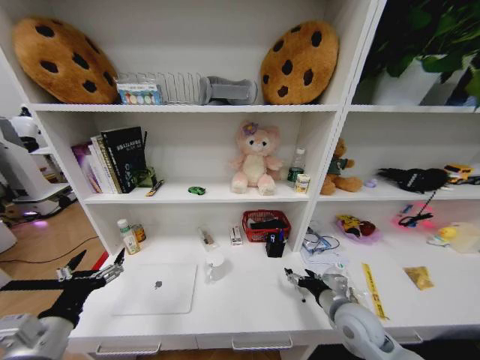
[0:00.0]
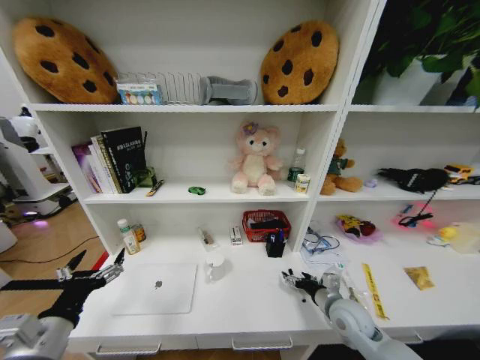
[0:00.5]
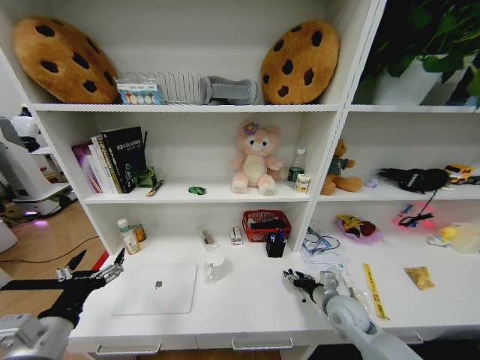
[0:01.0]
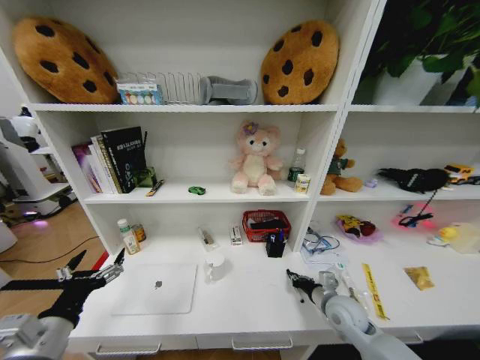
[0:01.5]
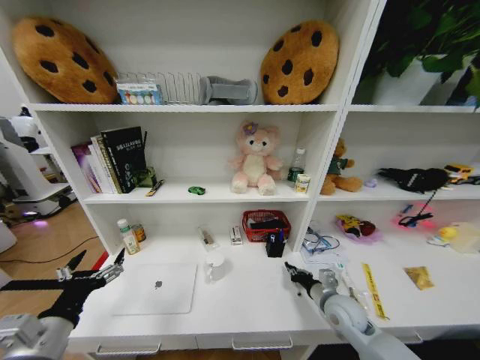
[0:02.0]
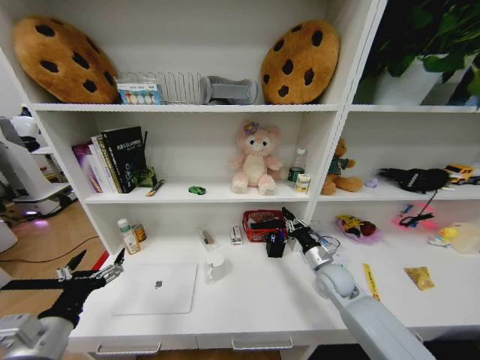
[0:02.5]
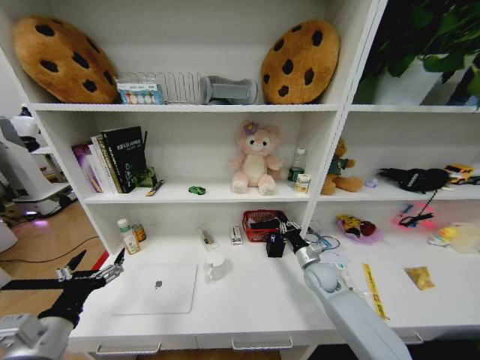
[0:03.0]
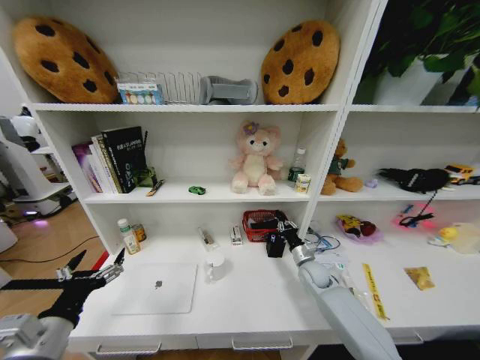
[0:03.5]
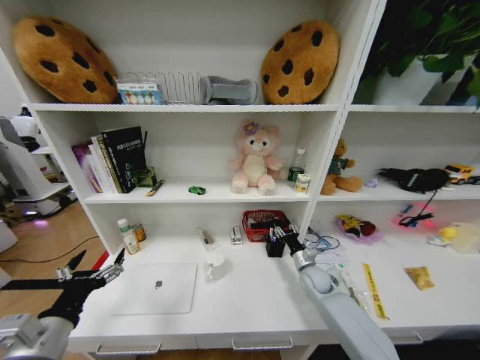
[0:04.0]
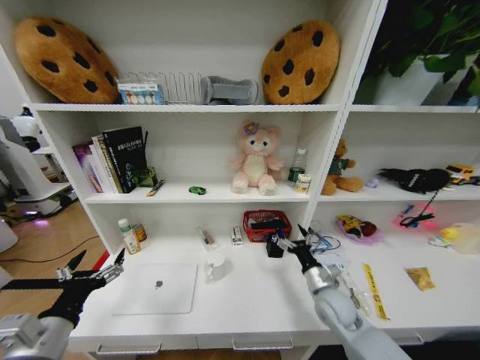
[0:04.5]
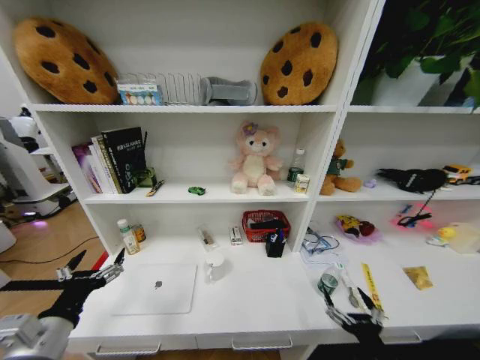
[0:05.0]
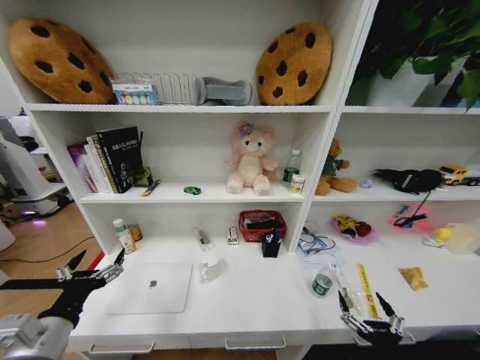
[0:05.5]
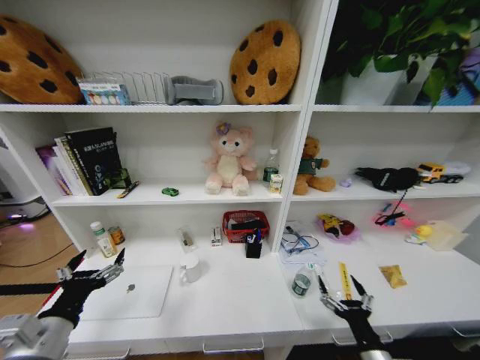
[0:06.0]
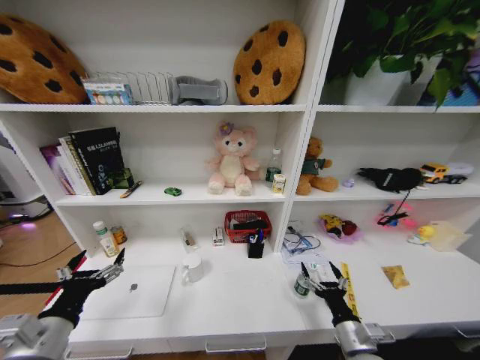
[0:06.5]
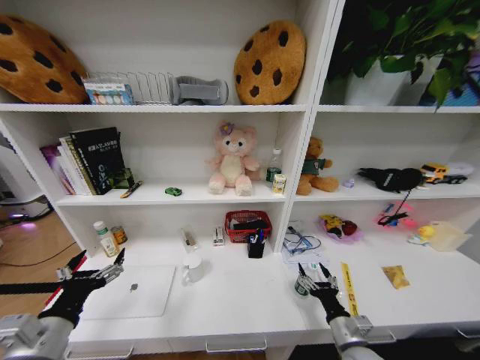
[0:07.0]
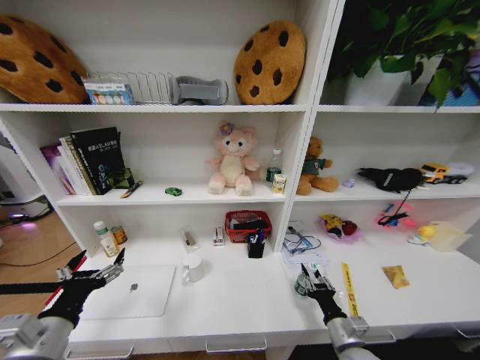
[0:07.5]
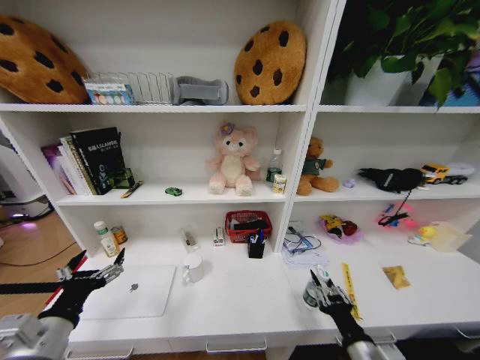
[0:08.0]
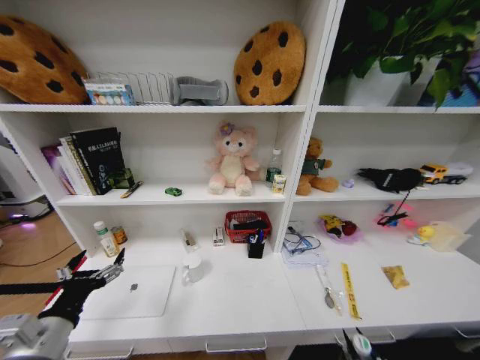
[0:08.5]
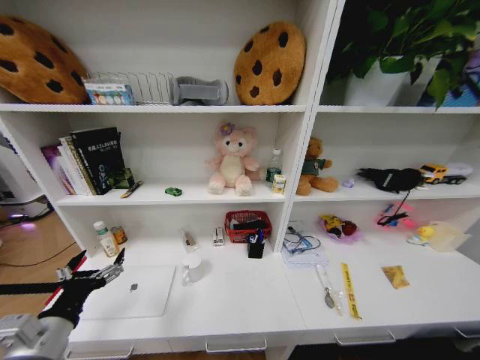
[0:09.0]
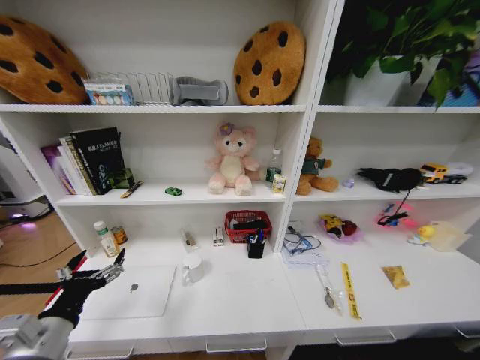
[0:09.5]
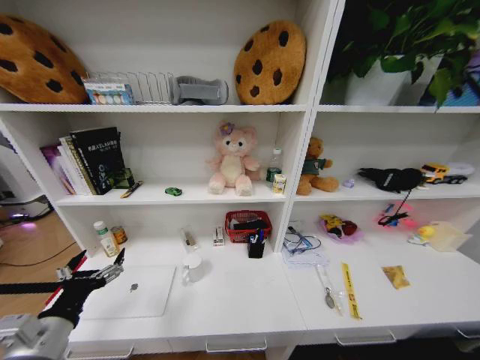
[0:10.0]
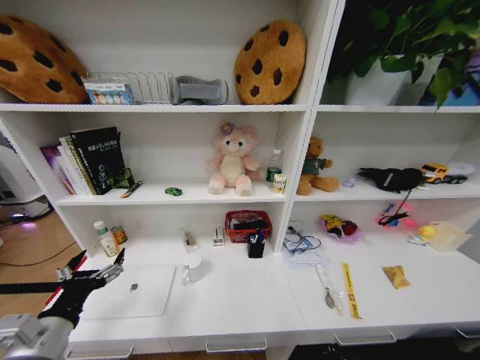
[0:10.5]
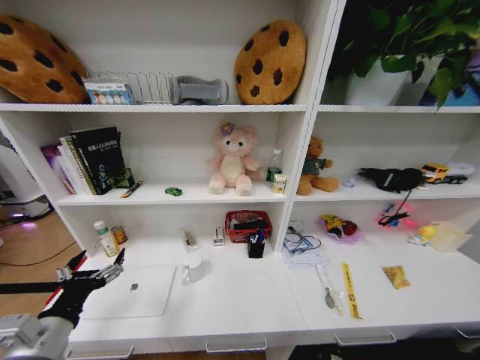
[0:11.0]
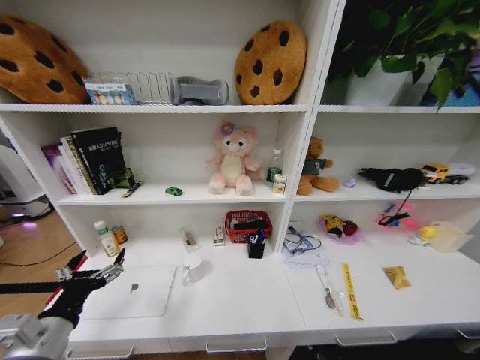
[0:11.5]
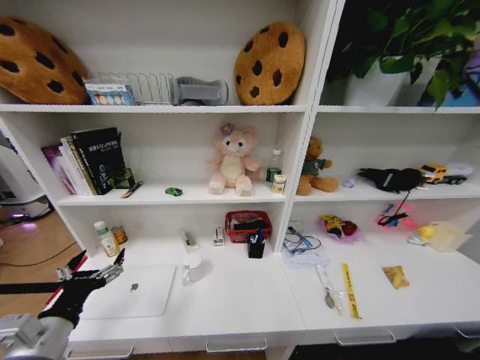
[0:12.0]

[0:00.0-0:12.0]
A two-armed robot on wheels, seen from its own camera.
Task of the whole recording: Organize the objects on the table.
0:00.0 to 0:02.0: The right gripper closes.
0:02.0 to 0:04.0: The right gripper shifts roughly 15 cm forward and downward, and opens its fingers.
0:04.0 to 0:06.0: The right gripper is displaced backward by roughly 30 cm, and opens.
0:06.0 to 0:08.0: The right gripper closes.
0:08.0 to 0:10.0: The right gripper moves downward, roughly 30 cm.

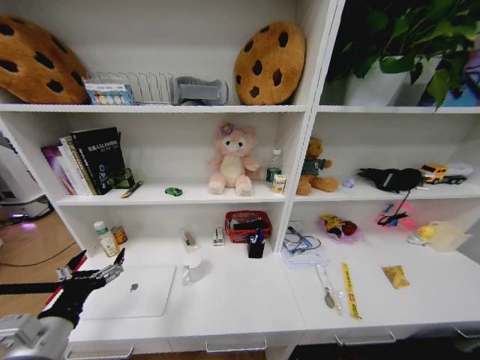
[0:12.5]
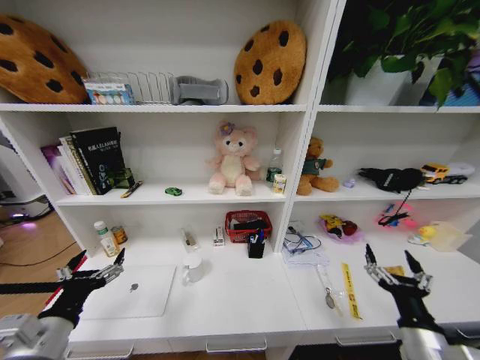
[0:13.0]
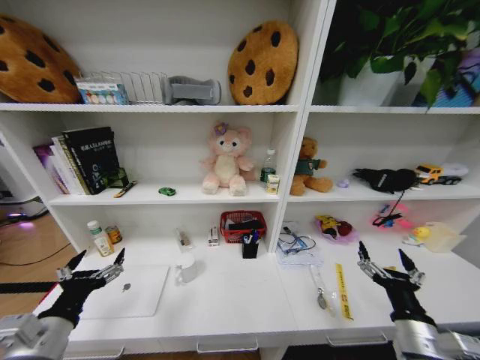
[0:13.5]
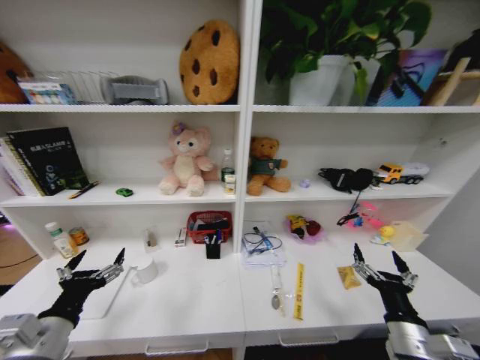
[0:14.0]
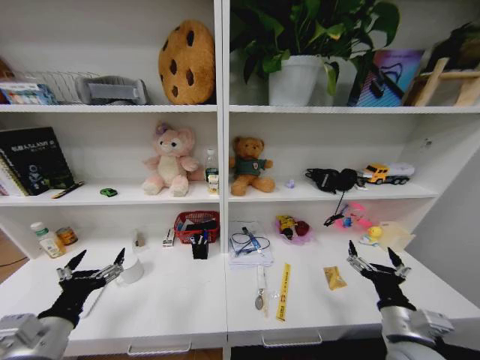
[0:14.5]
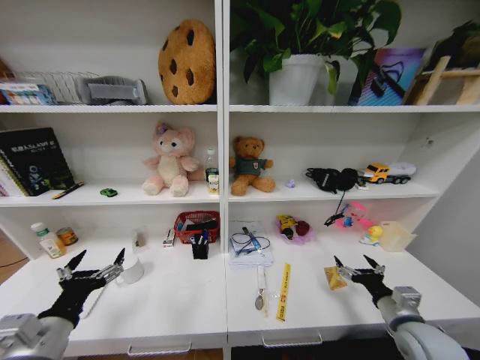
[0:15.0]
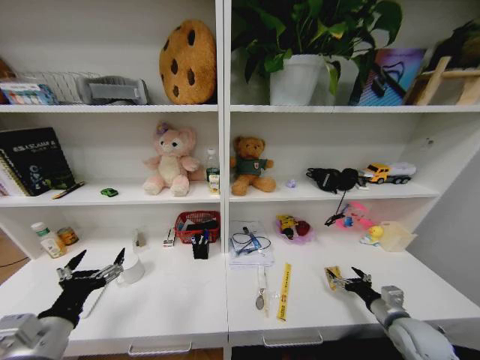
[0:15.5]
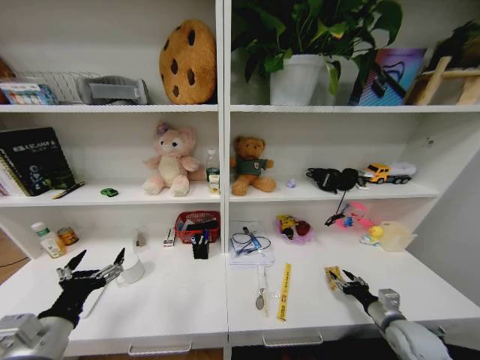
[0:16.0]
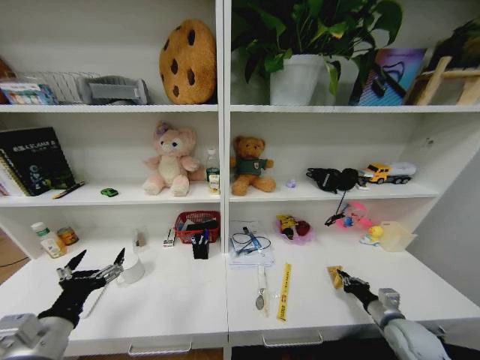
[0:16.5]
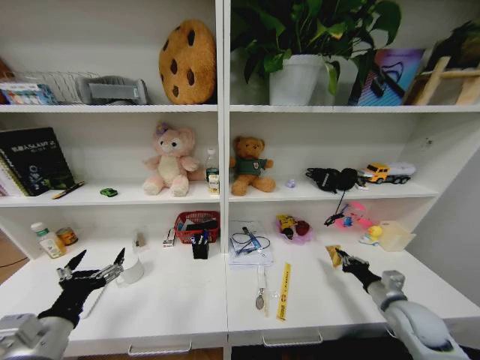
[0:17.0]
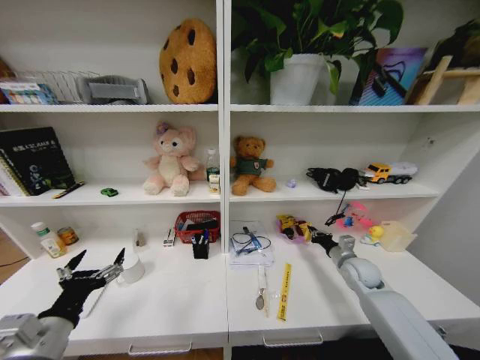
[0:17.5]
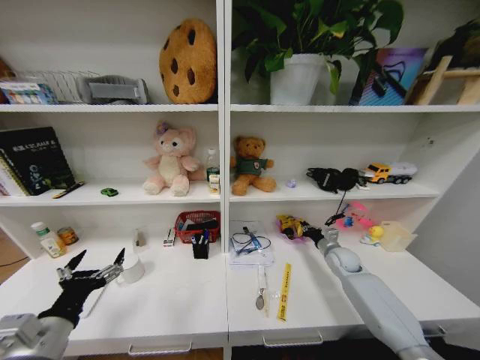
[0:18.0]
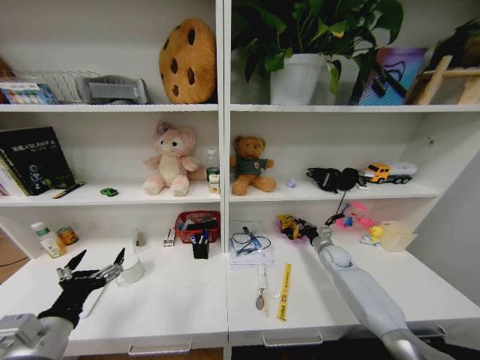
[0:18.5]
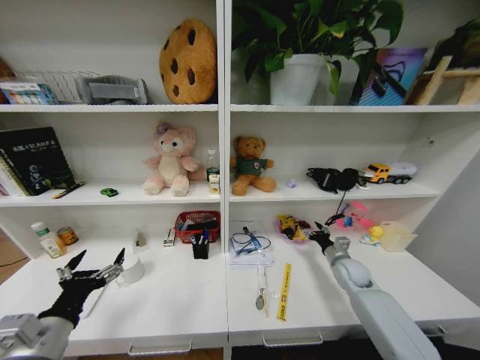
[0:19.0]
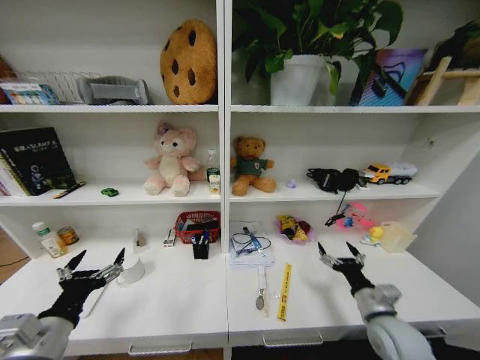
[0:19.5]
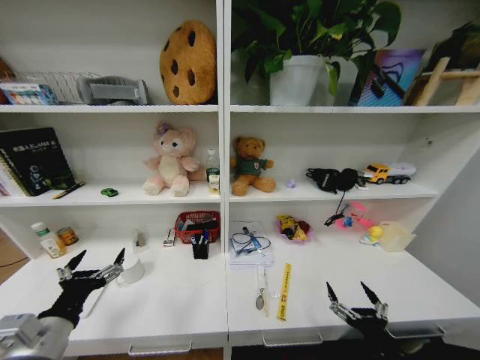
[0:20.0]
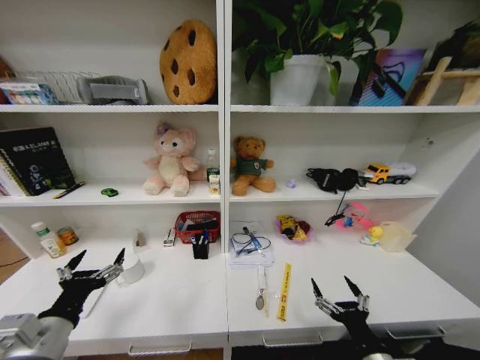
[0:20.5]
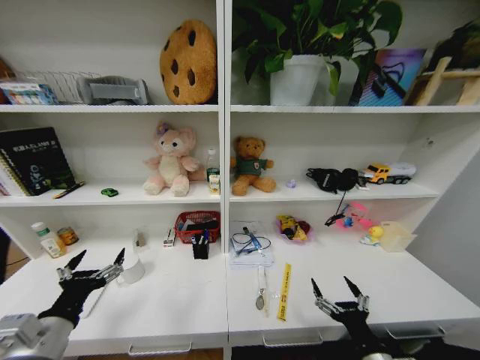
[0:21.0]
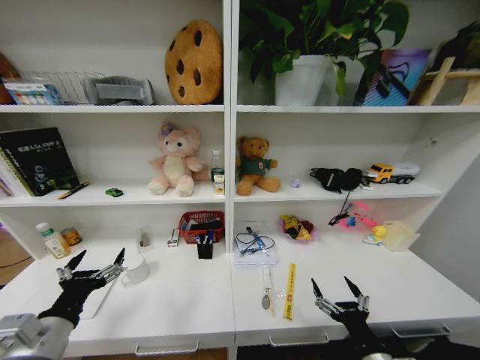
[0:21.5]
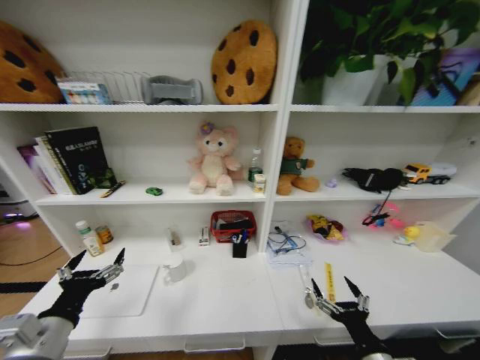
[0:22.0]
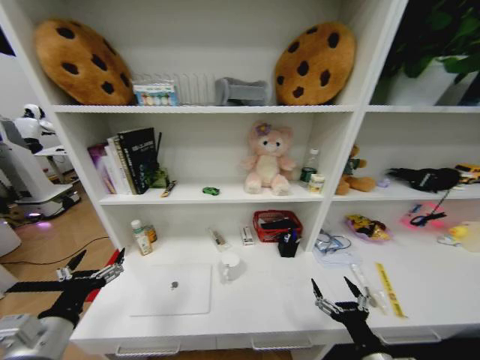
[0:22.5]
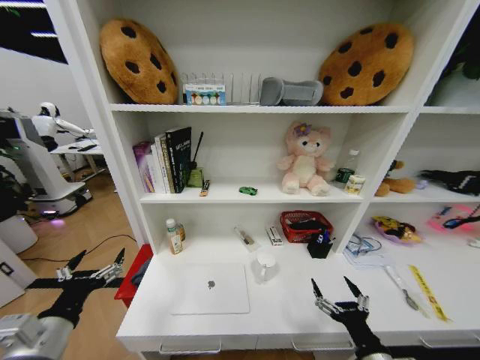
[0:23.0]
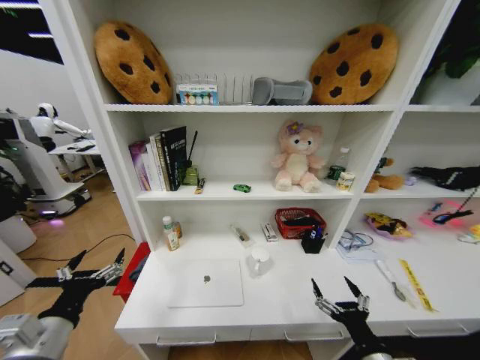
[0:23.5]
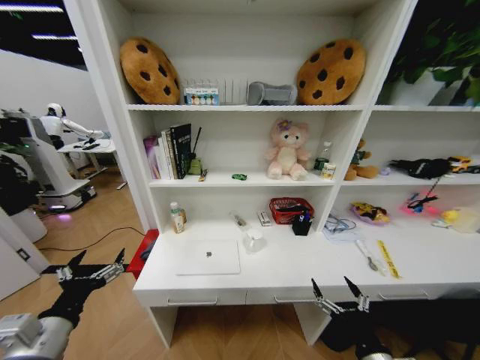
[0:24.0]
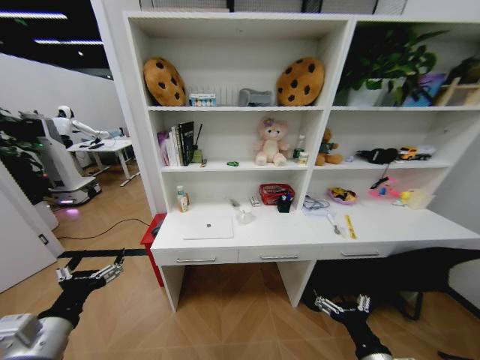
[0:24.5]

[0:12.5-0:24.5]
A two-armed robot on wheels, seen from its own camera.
Task of the whole recording: Organize the objects on the table.
0:12.5 to 0:14.5: The right gripper heads forward and upward, covering roughly 25 cm.
0:14.5 to 0:16.5: The right gripper shifts some 15 cm to the right, downward and forward, and closes.
0:16.5 to 0:18.5: The right gripper heads forward, covering some 25 cm.
0:18.5 to 0:20.5: The right gripper moves backward, about 40 cm, and opens up.

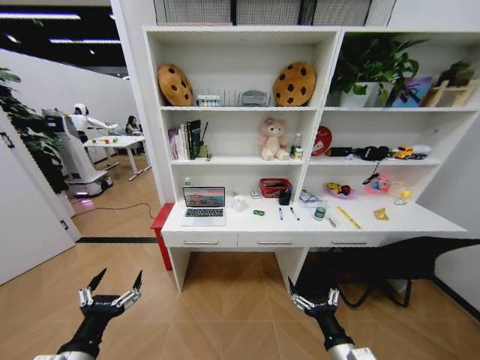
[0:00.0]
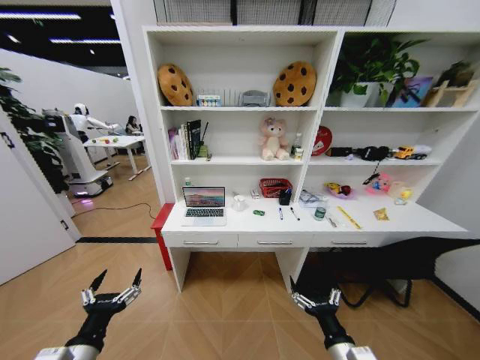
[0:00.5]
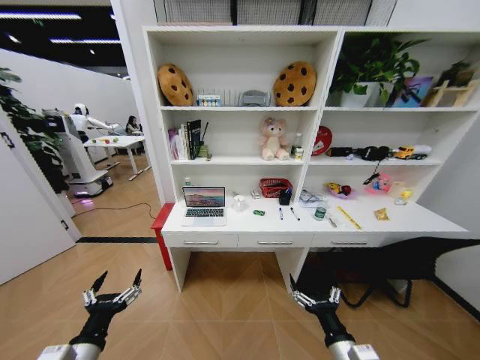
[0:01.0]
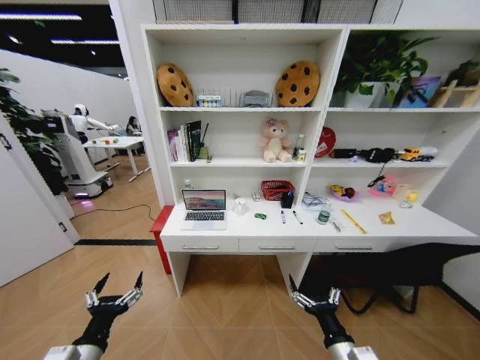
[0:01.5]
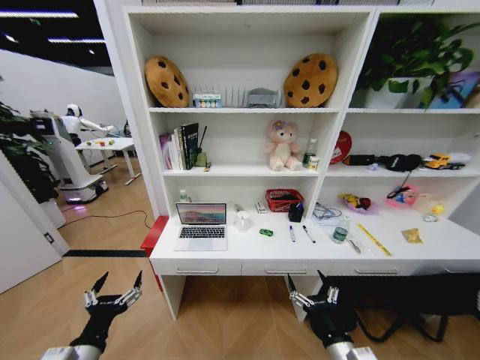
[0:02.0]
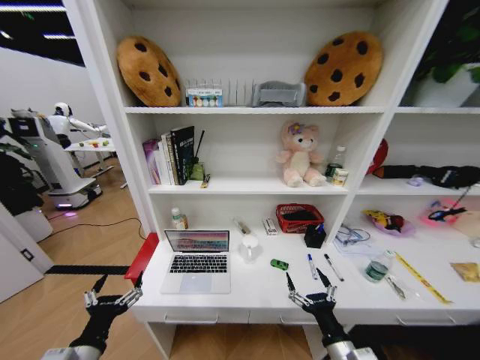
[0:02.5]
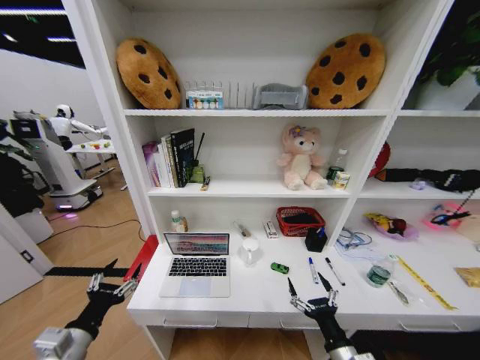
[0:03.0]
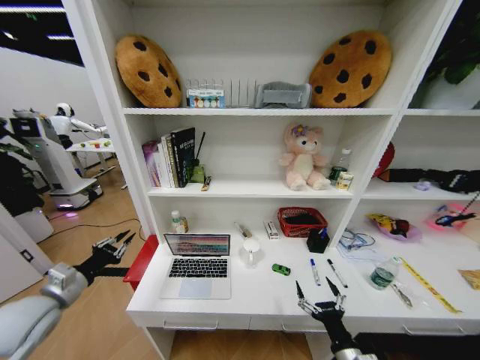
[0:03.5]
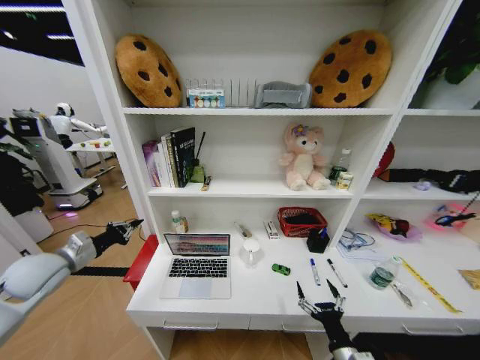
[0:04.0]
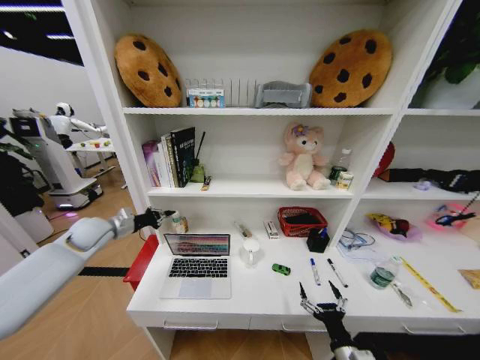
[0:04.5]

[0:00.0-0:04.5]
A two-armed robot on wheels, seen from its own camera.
Task of the whole recording: Organize the objects on the table.
0:02.0 to 0:04.5: The right gripper is displaced downward by roughly 5 cm. Meanwhile the left gripper heads forward, covering roughly 35 cm, and closes its fingers.
